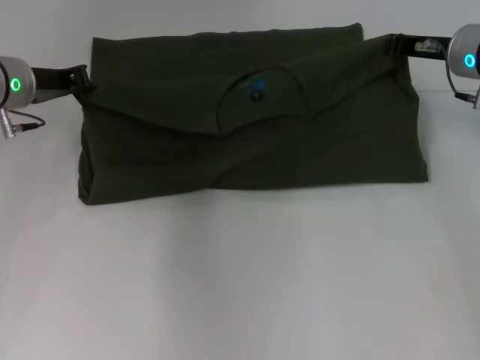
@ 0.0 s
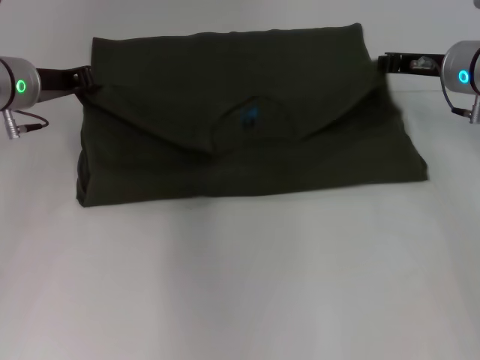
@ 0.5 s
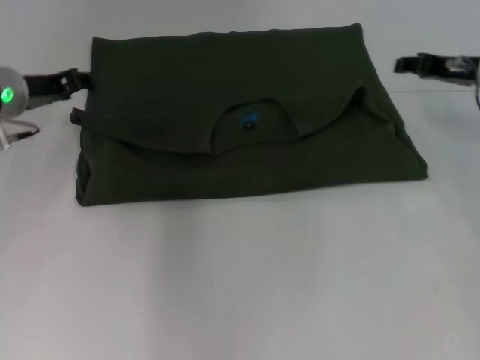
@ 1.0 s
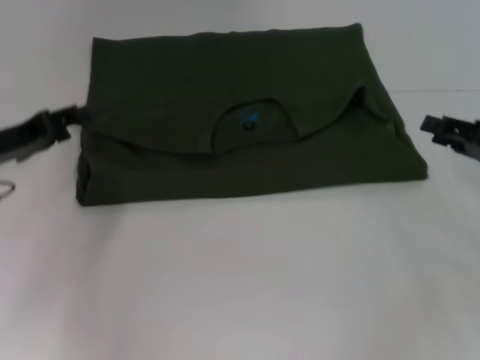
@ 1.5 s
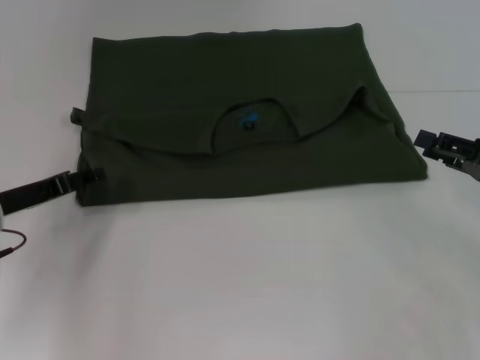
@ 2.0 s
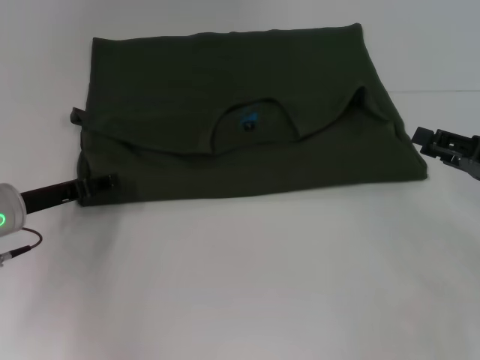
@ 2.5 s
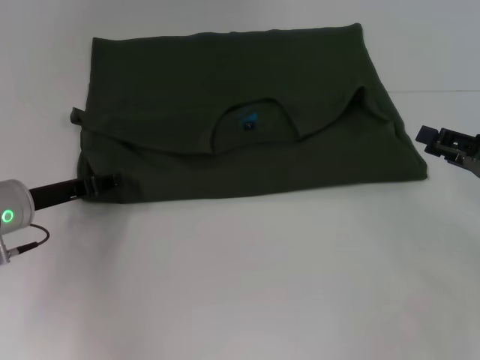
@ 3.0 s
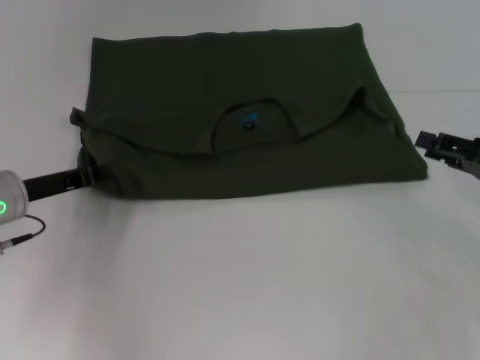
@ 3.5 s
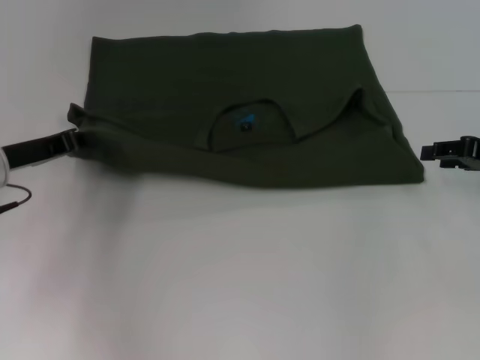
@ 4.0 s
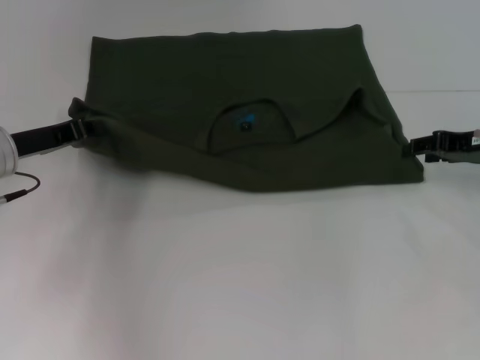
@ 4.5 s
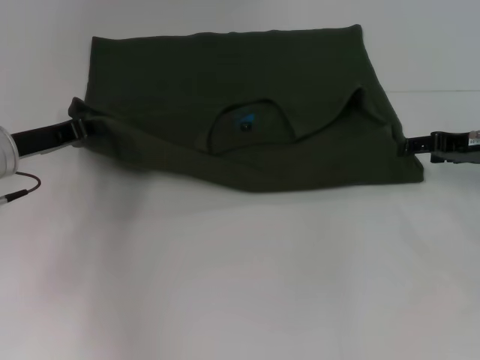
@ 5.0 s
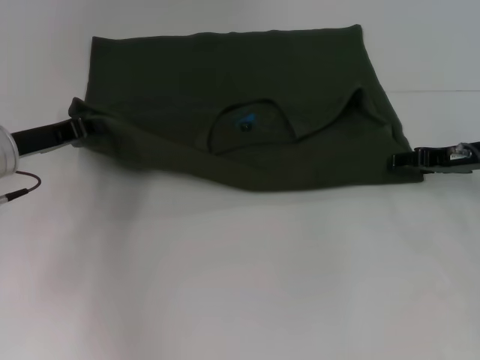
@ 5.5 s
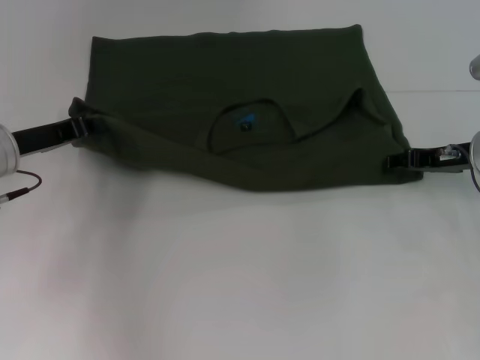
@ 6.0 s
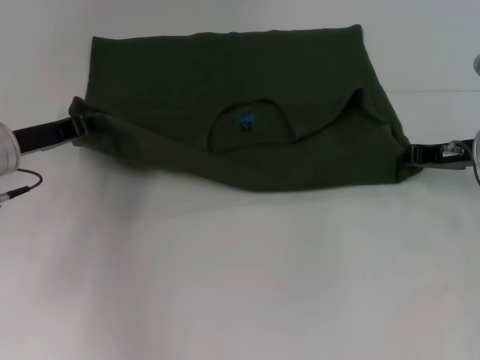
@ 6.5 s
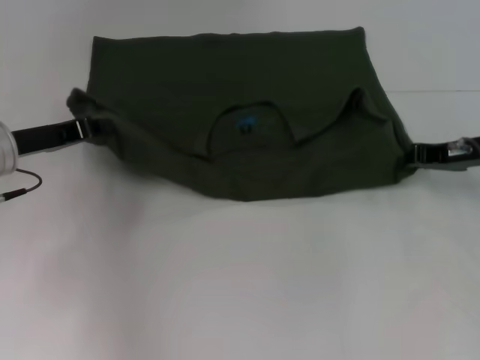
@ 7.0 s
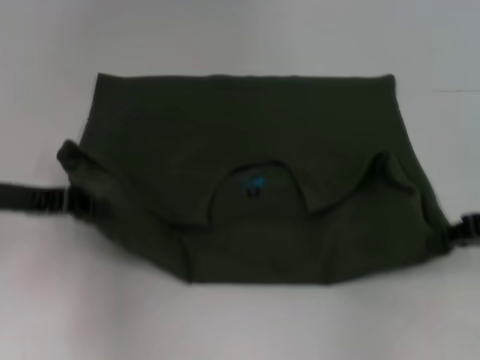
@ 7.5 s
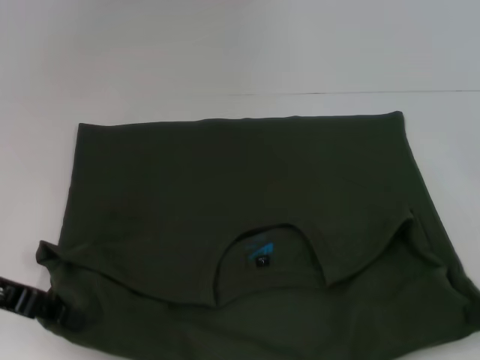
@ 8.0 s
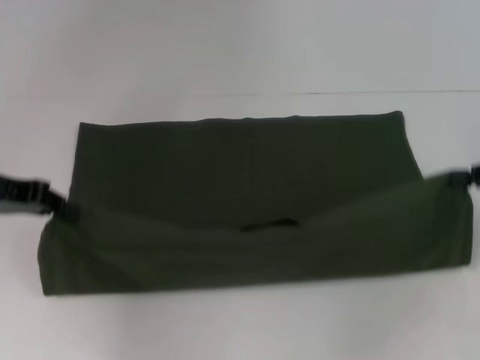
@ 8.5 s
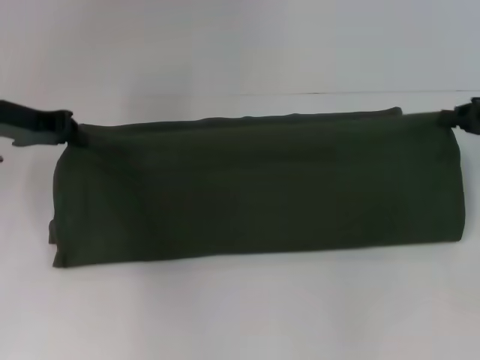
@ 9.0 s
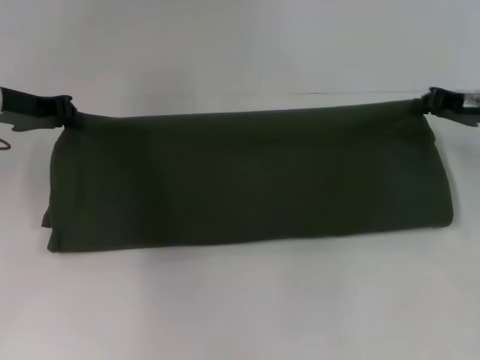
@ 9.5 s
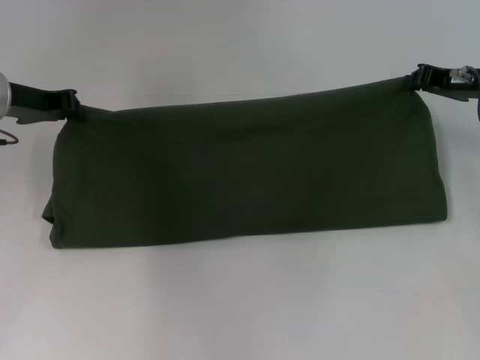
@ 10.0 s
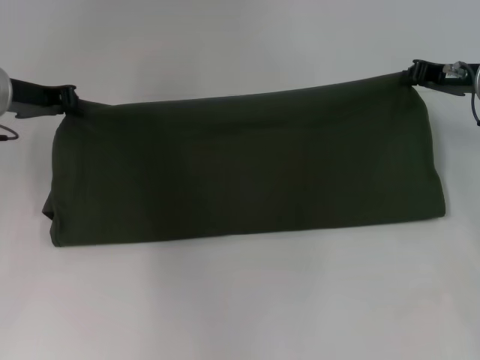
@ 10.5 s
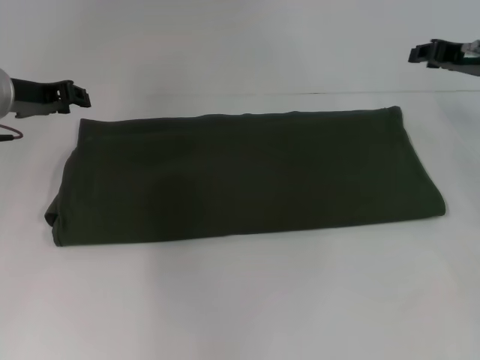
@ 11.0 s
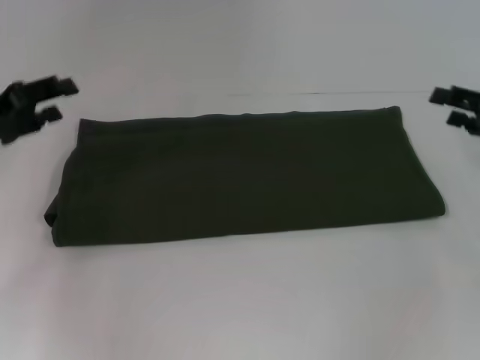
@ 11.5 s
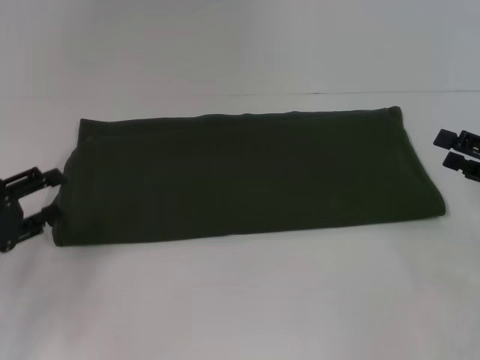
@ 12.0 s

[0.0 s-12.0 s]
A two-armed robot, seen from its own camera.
Step, 1.0 to 7.5 s: Pull the clothes with your left hand.
Step, 1.0 to 7.5 s: Pull the clothes with your right hand.
Step, 8.0 to 10.5 s: Fold the clothes with your right hand.
0.0 to 2.0 s: The right gripper goes approximately 20 cm backward, to the right and downward, and opens up; the left gripper goes some 15 cm backward and downward, and opens up.
2.0 to 4.0 s: The left gripper ends up about 5 cm from where it was, and closes its fingers. The right gripper moves forward, approximately 5 cm.
4.0 to 6.0 s: The right gripper moves to the left, about 5 cm.
6.0 to 8.0 s: The right gripper is displaced backward and to the right by some 15 cm, and closes up; the left gripper shifts roughly 10 cm backward.
8.0 to 10.0 s: The left gripper heads forward, covering some 15 cm. The right gripper is displaced forward and to the left by approximately 20 cm.
10.0 to 12.0 s: The right gripper heads backward and to the right, covering some 15 cm, and opens up. Meanwhile the left gripper heads backward and downward, covering approximately 20 cm, and opens up.

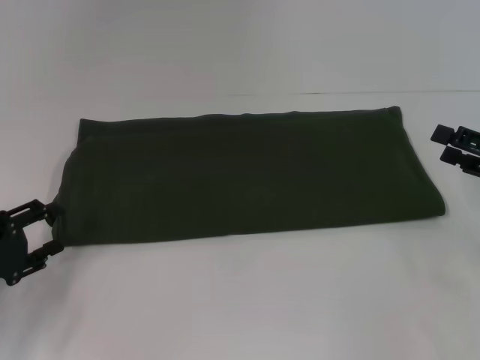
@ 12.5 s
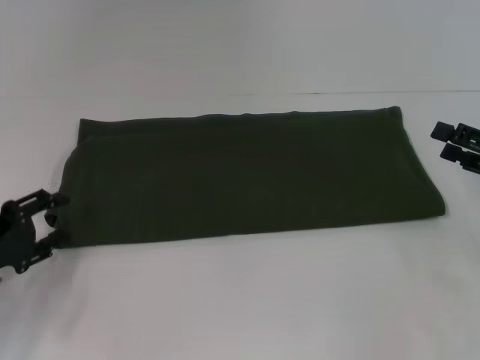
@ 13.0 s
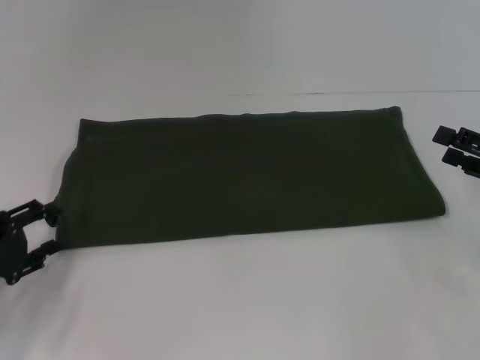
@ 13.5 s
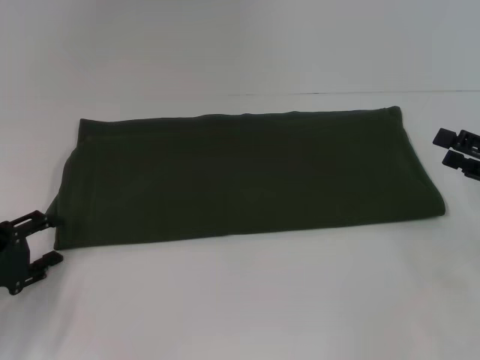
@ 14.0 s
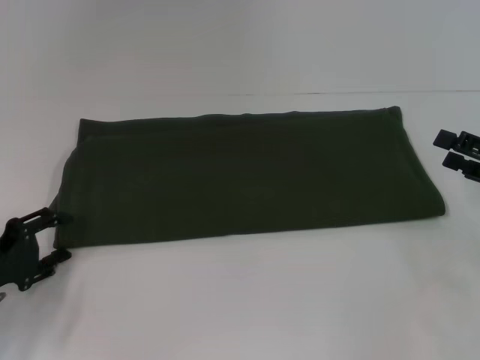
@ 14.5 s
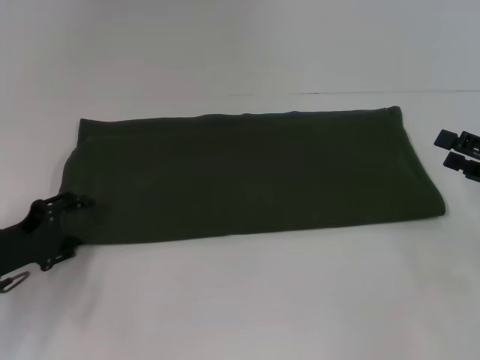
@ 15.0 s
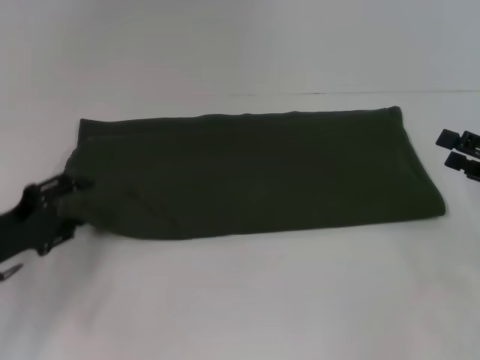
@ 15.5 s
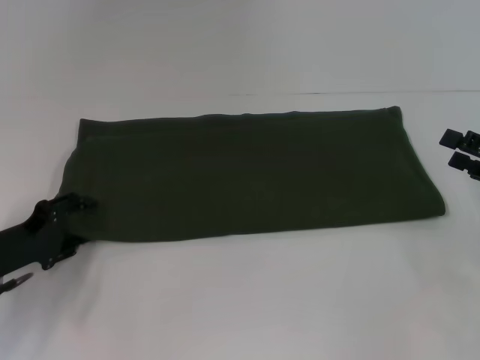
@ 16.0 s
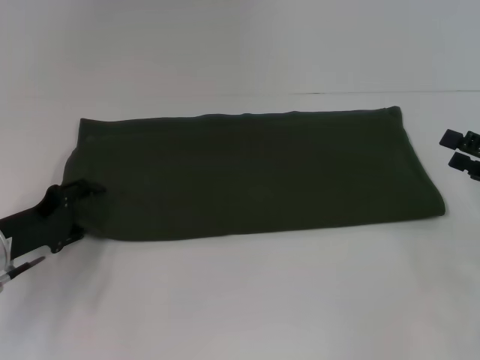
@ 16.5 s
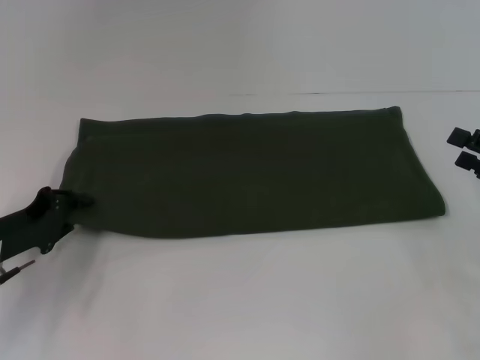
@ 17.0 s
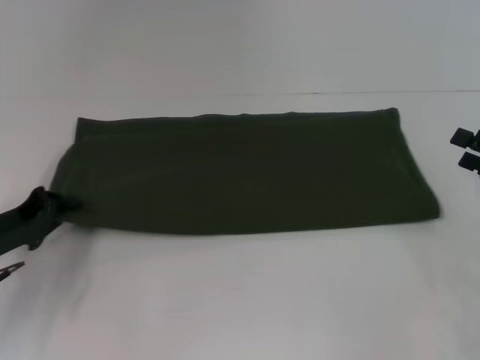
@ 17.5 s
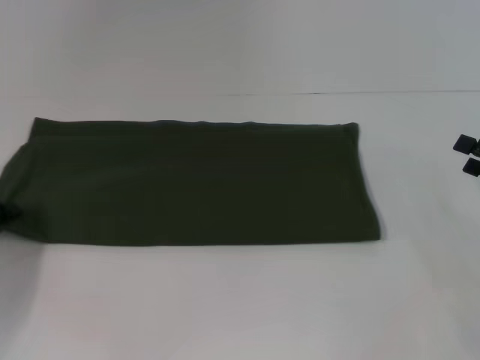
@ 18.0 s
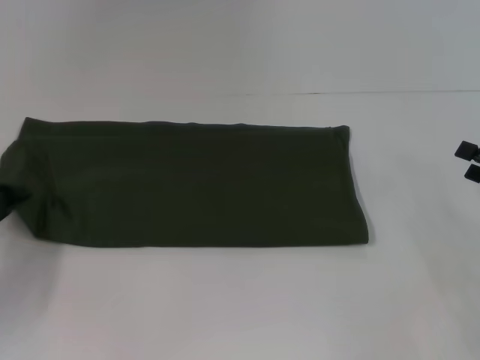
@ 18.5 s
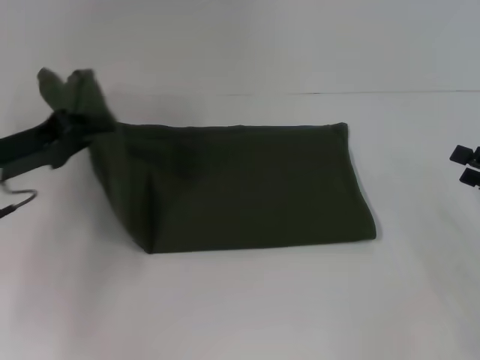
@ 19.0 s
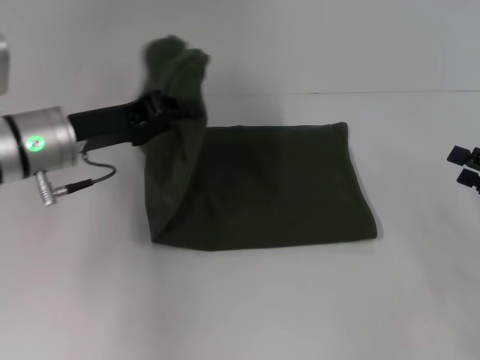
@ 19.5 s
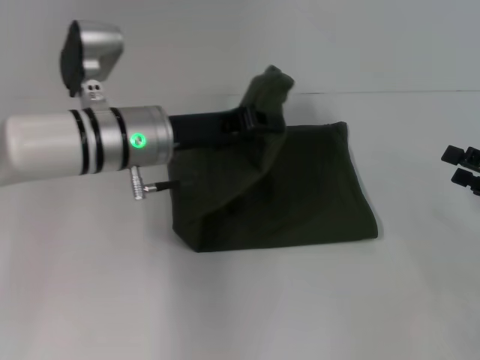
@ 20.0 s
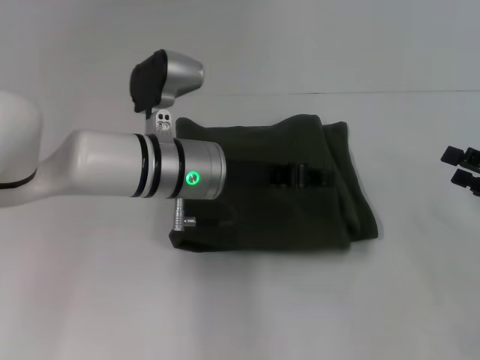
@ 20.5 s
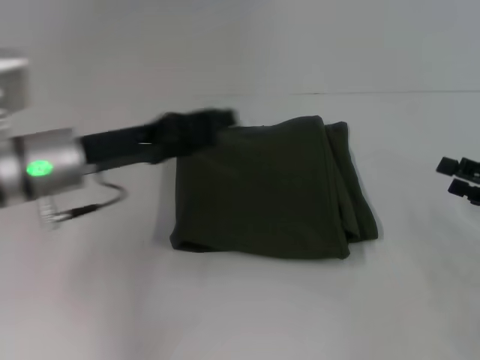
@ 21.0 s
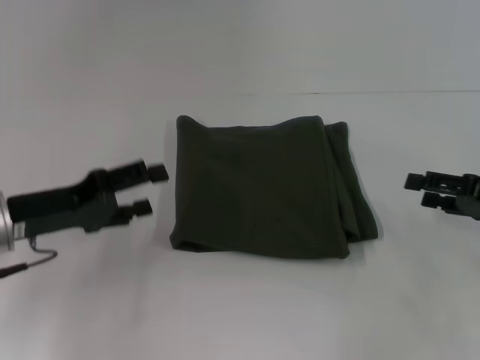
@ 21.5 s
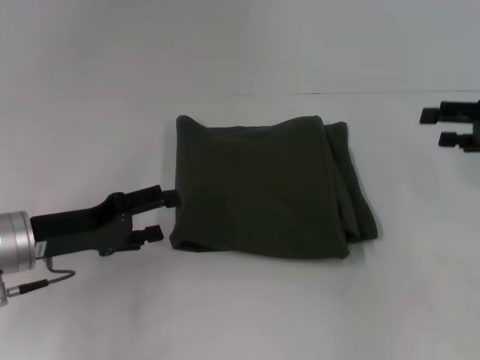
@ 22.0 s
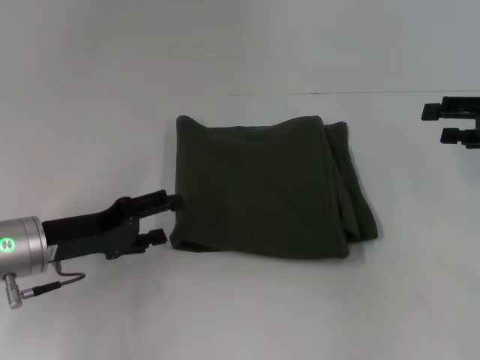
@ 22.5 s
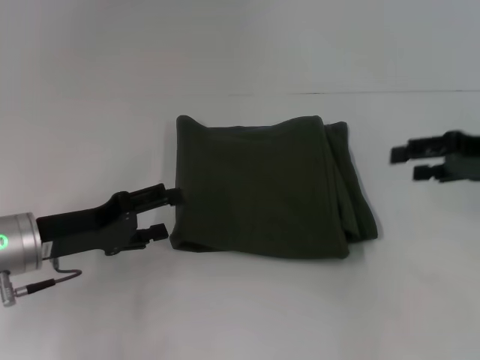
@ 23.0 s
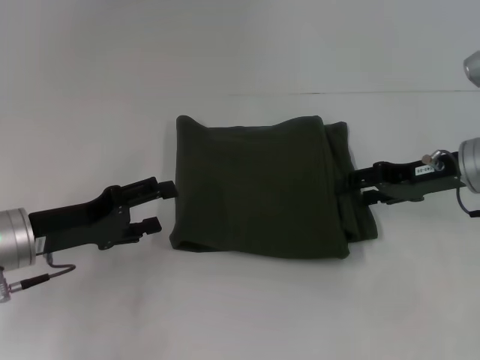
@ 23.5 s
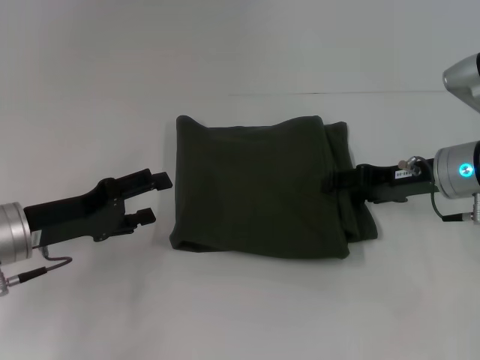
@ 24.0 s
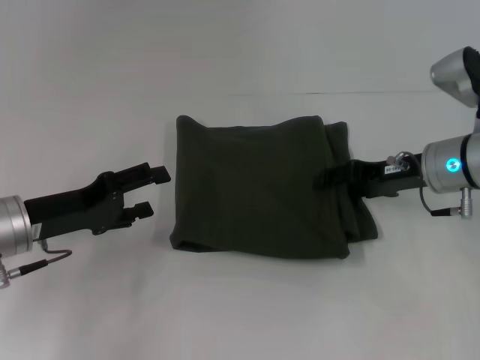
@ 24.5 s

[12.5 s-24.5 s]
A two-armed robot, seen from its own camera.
Step, 12.5 to 20.5 s: Fold the clothes with your left hand.
12.5 to 14.5 s: There are only small adjustments of the grippers.
14.5 to 16.5 s: The left gripper changes place by roughly 5 cm.
16.5 to 18.5 s: The left gripper goes roughly 5 cm to the left, and closes.
18.5 to 20.5 s: The left gripper travels to the right by about 25 cm.
20.5 to 22.5 s: The left gripper travels to the left by some 15 cm, and opens, while the right gripper is displaced upward and forward by some 10 cm.
22.5 to 24.5 s: The right gripper goes about 15 cm to the left and downward.

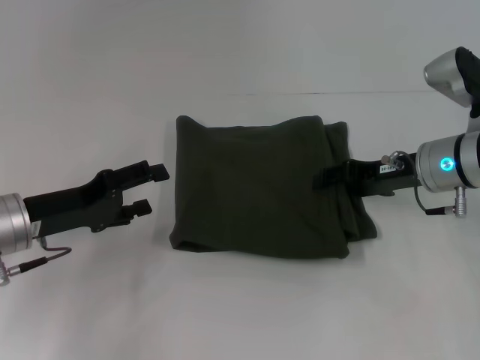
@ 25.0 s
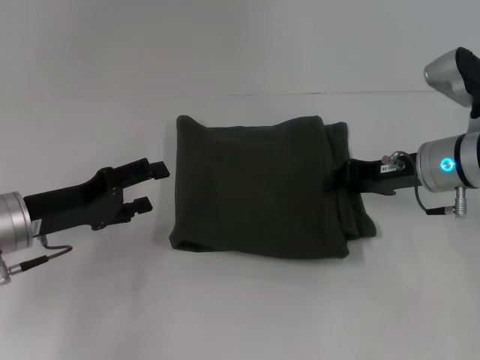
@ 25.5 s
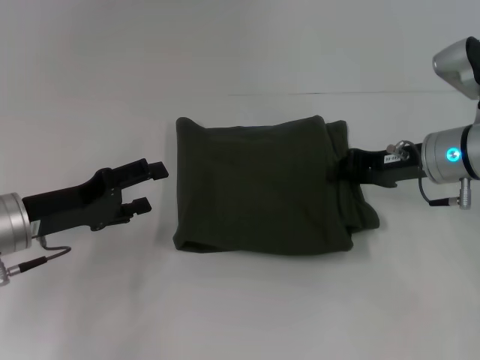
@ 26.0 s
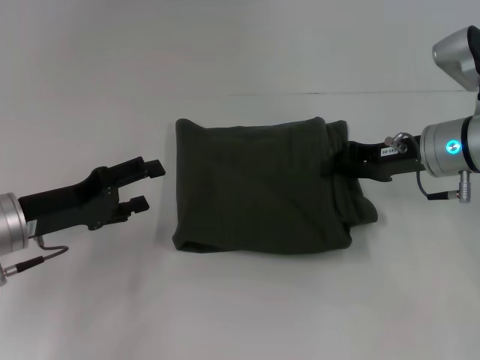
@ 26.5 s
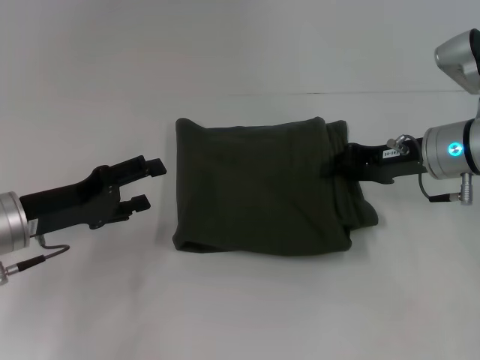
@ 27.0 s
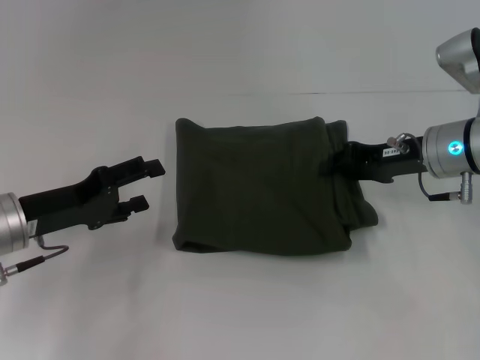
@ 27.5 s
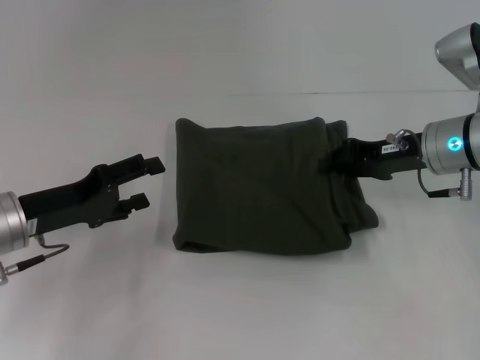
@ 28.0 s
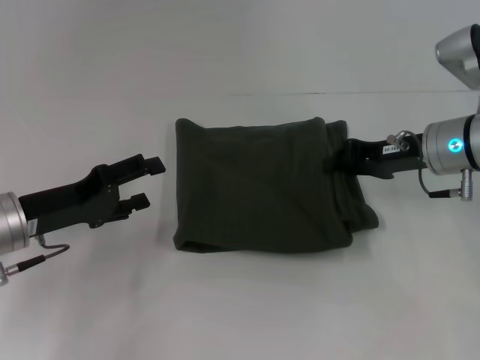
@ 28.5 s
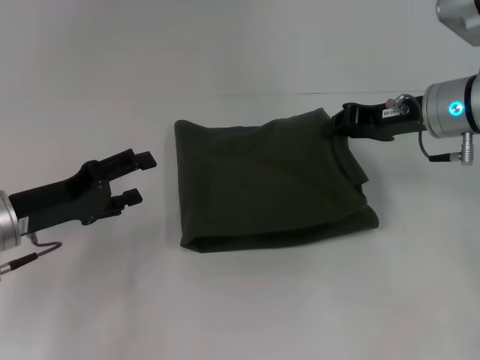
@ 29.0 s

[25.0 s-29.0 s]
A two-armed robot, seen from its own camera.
25.0 to 27.0 s: The right gripper closes.
27.0 to 29.0 s: The grippers move only a little.
